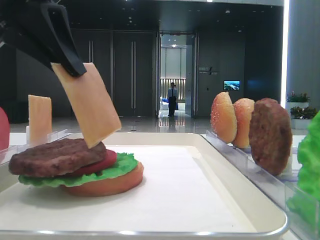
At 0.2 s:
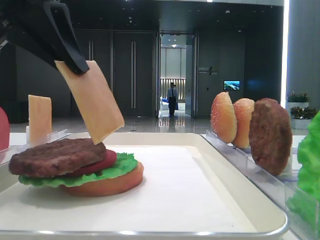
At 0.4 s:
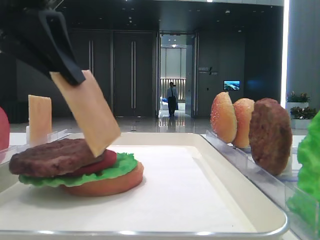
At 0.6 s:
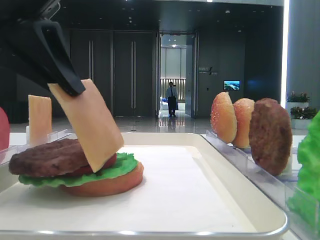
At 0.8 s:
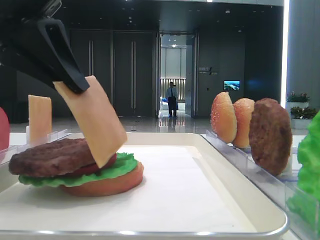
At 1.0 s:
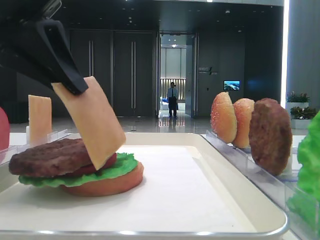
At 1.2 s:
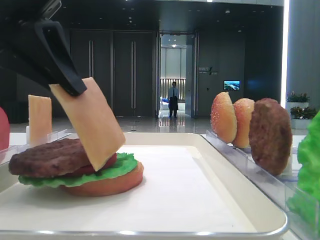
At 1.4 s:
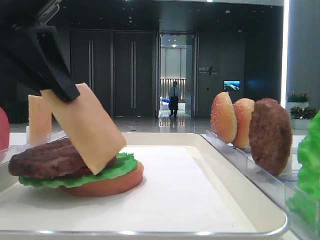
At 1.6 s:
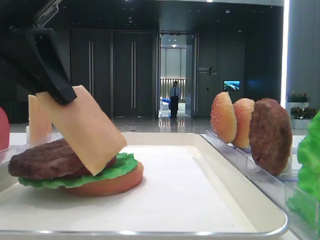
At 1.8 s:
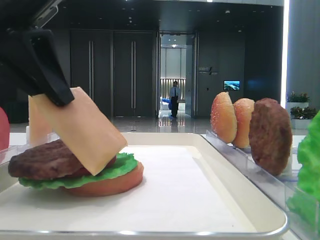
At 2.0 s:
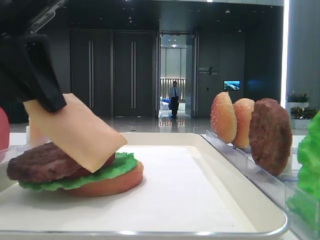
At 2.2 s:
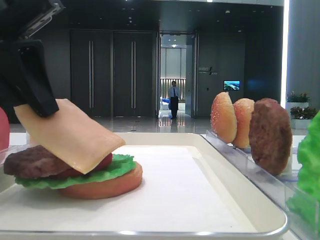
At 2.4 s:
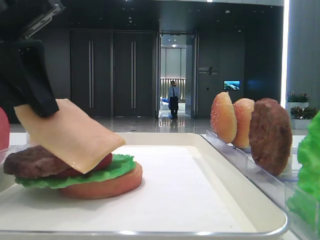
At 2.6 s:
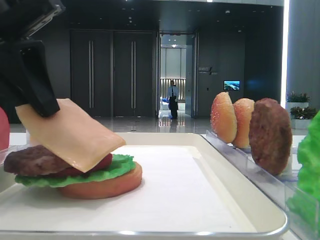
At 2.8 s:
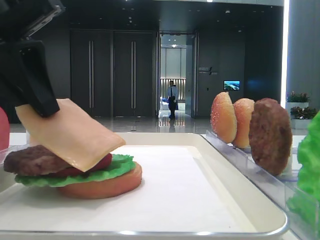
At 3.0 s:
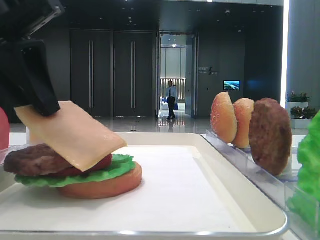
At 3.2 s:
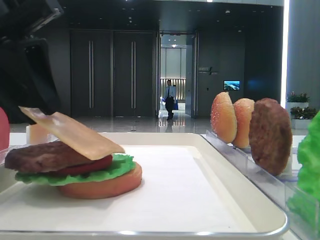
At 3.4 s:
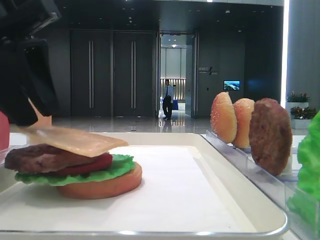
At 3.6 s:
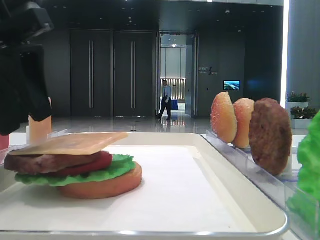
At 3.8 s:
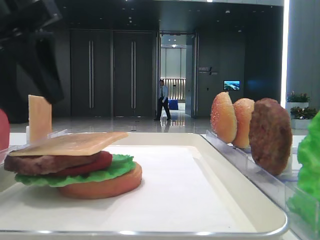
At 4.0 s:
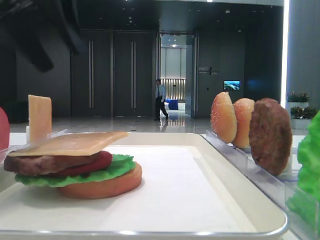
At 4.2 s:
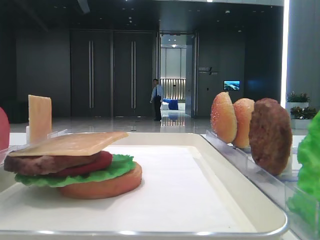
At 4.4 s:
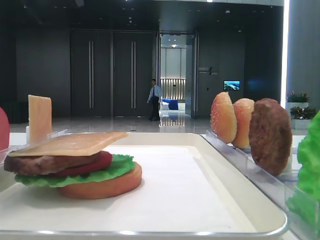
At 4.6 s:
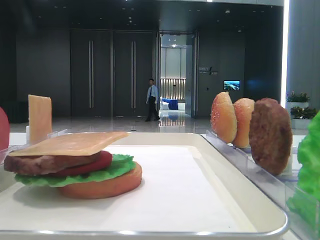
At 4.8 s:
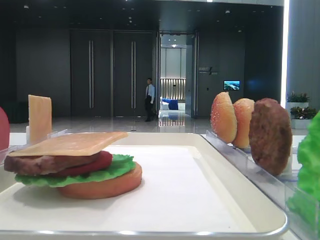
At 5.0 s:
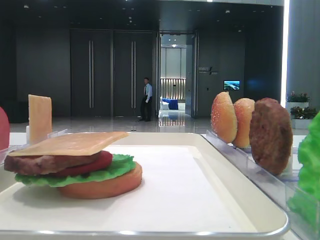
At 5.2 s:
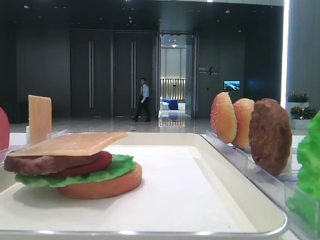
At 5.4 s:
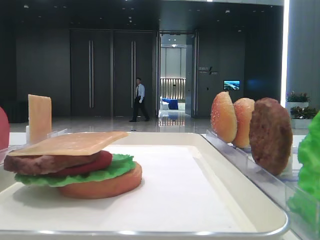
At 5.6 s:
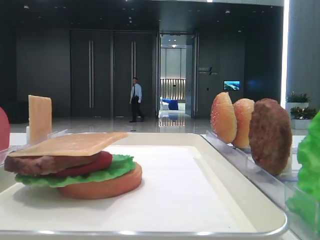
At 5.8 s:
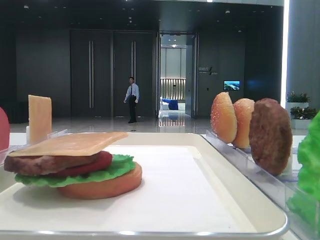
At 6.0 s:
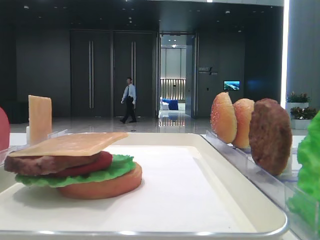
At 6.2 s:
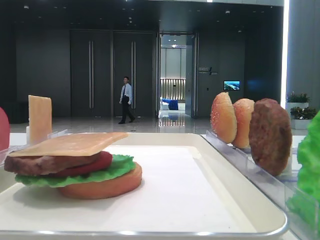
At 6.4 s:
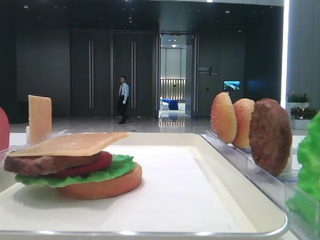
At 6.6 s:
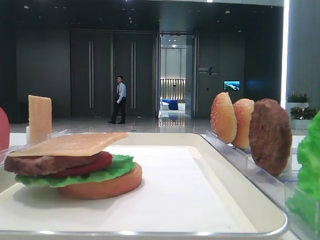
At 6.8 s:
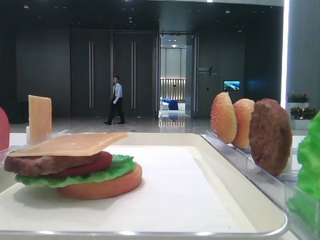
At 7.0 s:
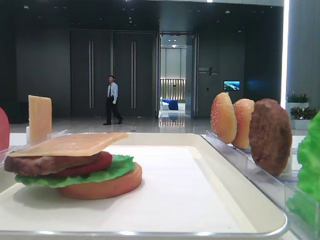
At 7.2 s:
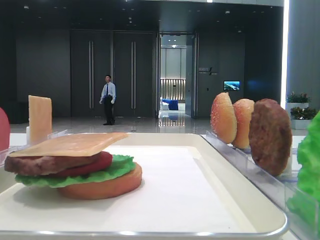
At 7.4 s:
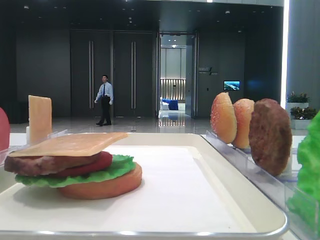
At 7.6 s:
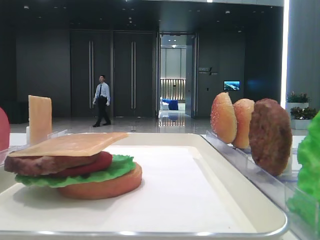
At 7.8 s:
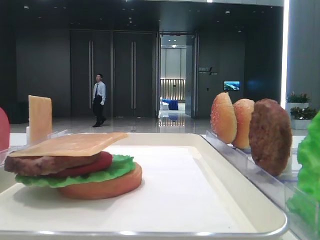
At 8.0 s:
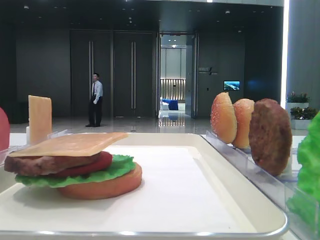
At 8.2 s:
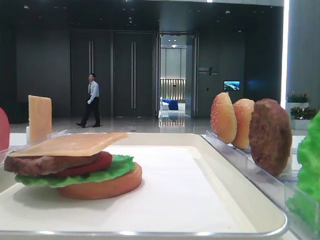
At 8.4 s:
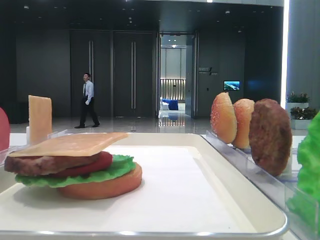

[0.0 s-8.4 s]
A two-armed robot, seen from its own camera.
Step, 0.0 to 3.4 s: Place the cheese slice on the patty with the left hand.
0.0 to 2.8 s: The grippers make only small movements.
2.8 to 4.2 s: The left gripper travels upward and forward by some 15 cm, and opens.
4.2 to 5.6 s: The left gripper travels to the left by roughly 20 cm.
5.6 to 7.0 s: The left gripper heads backward, covering about 20 cm.
